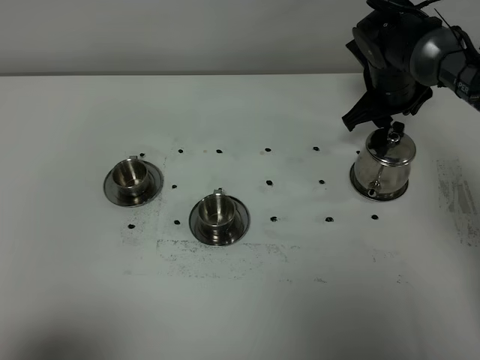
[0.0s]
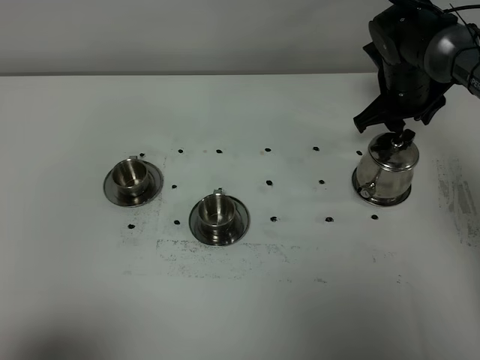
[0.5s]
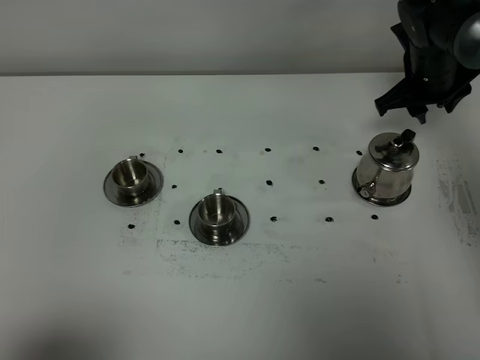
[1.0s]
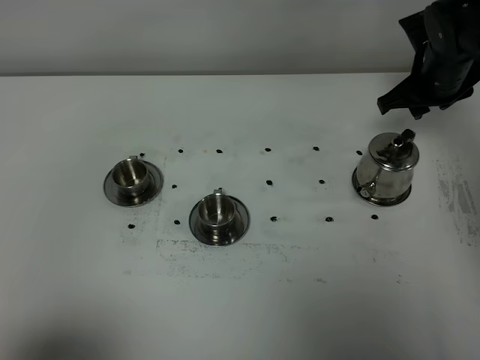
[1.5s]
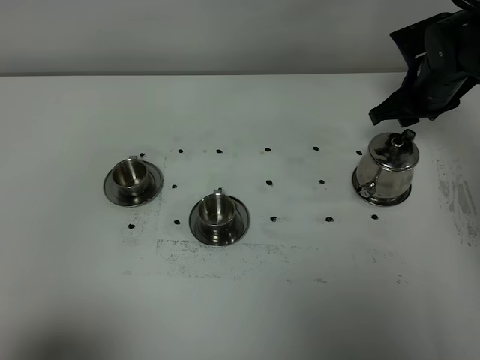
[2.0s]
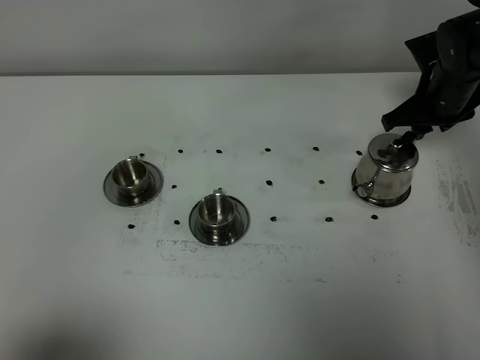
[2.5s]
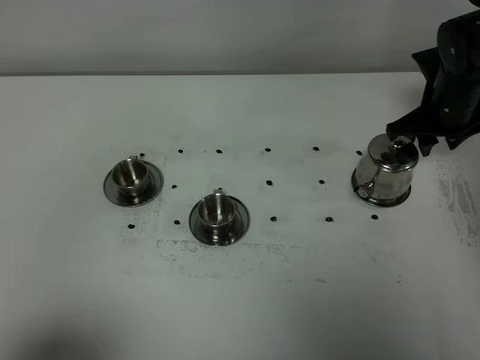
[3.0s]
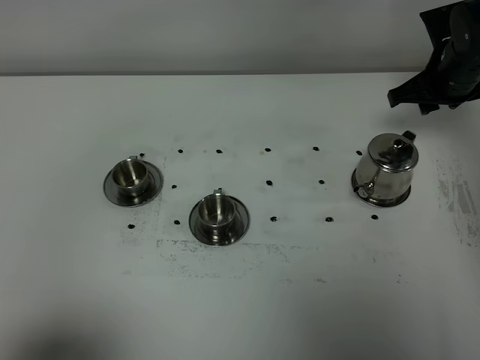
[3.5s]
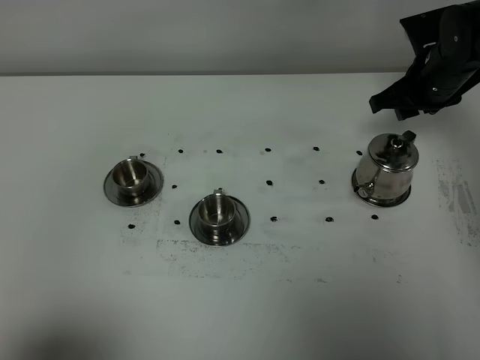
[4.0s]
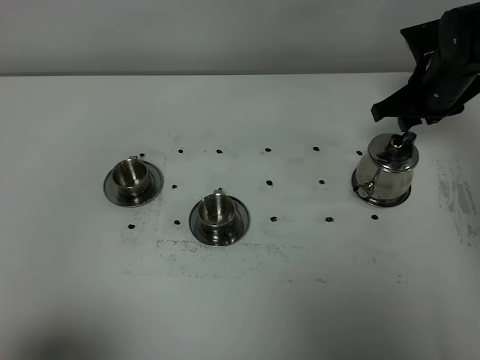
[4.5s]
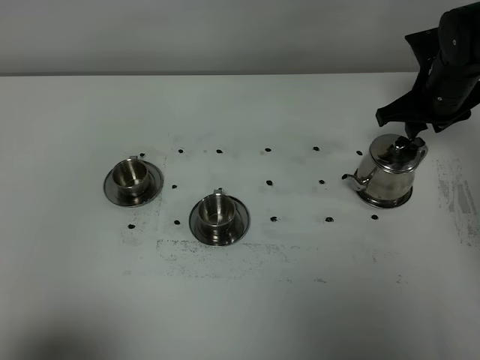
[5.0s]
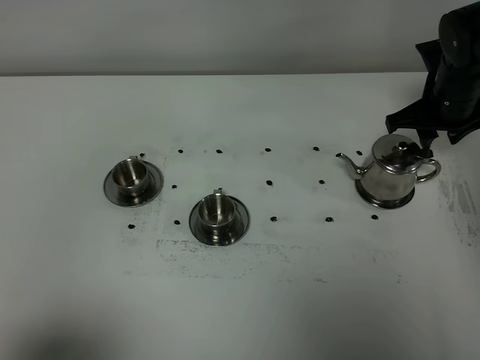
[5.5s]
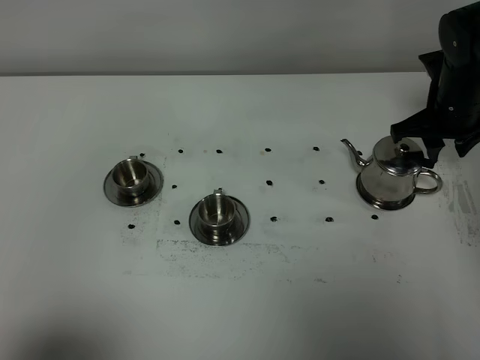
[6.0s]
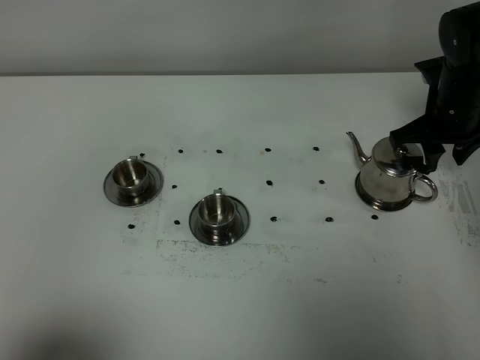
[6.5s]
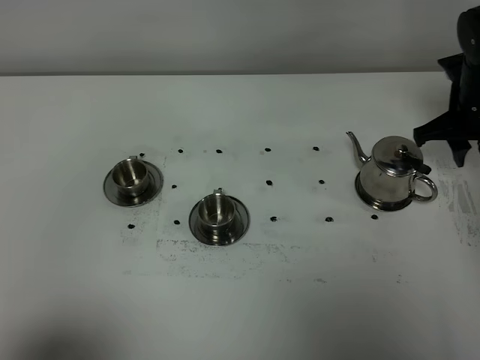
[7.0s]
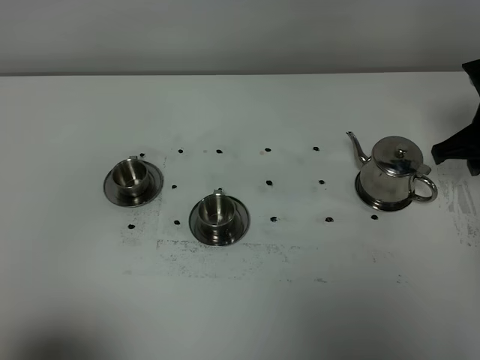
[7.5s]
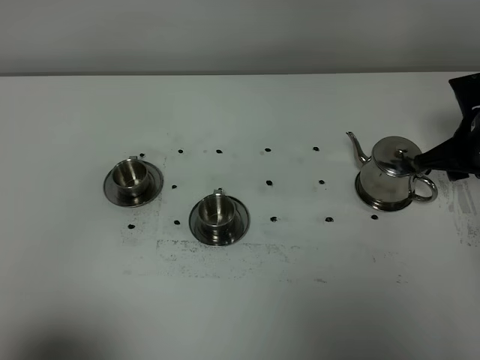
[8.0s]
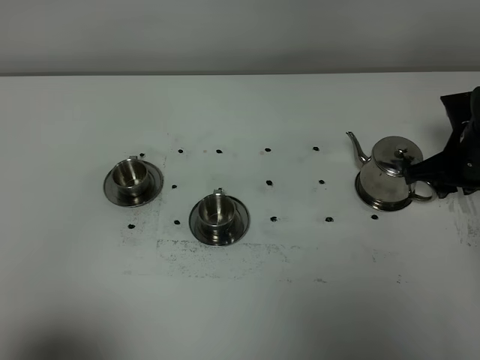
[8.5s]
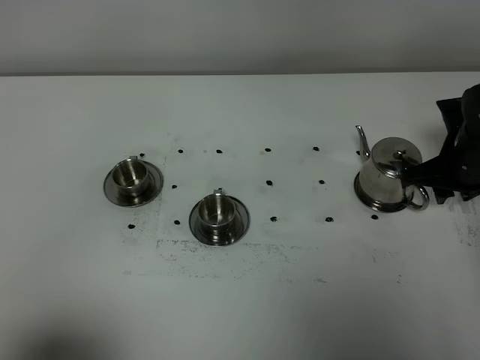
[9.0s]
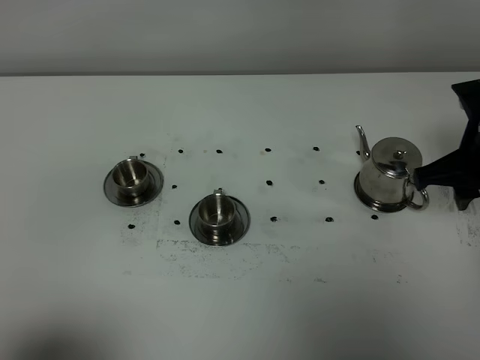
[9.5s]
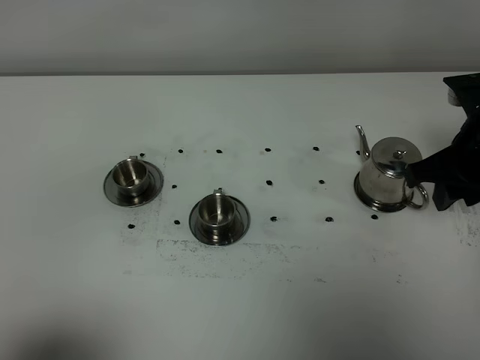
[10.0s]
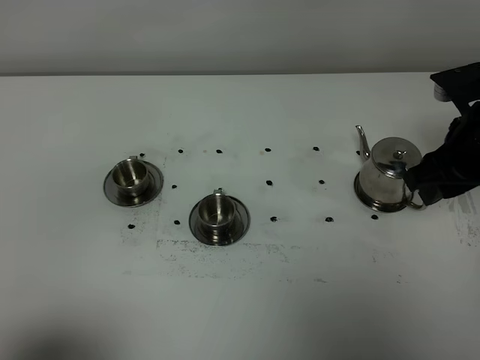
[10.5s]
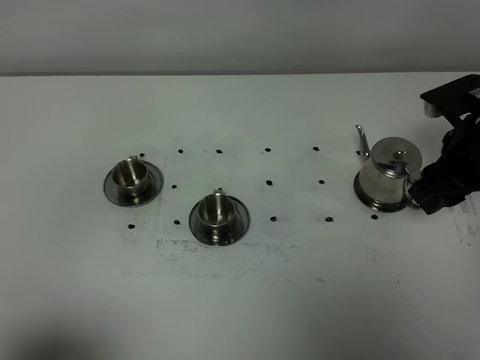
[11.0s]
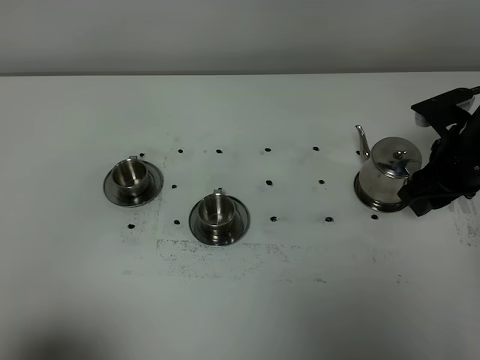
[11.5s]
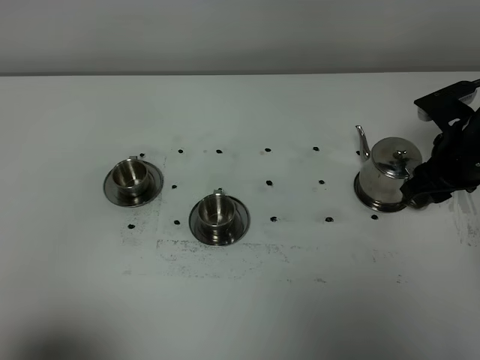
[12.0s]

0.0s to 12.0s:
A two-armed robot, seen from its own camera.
Task of the whole recording: grasp the stainless steel teapot and pour the tea into the two stainless steel teacups one by one, put the stainless steel teapot back in its original place.
0.0s to 2.0s: The right gripper shifts approximately 5 cm to the right.
2.0s to 4.0s: The grippers stay close to where they were, moving slightly.
6.0s to 8.0s: The right gripper heads backward, covering roughly 5 cm.
8.0s to 10.0s: The right gripper is displaced upward and backward by approximately 10 cm.
10.0s to 12.0s: The right gripper shifts approximately 10 cm downward and forward.

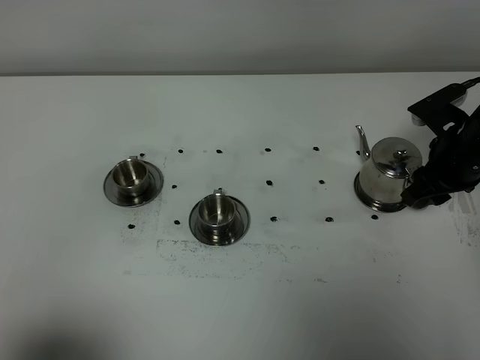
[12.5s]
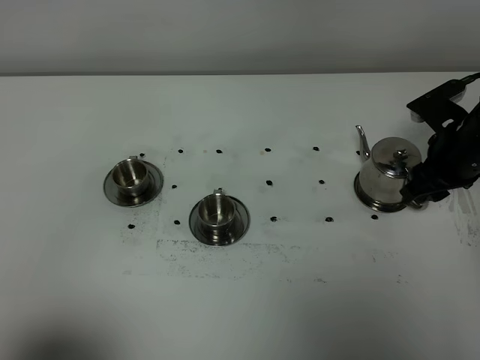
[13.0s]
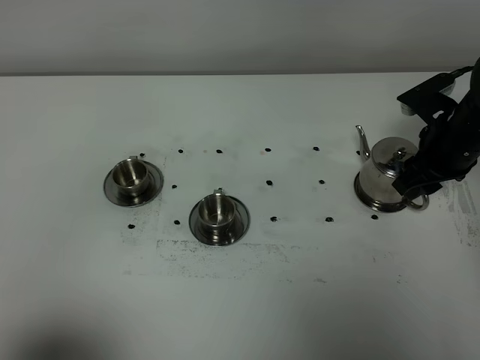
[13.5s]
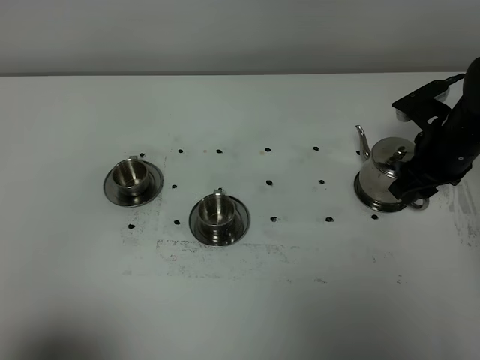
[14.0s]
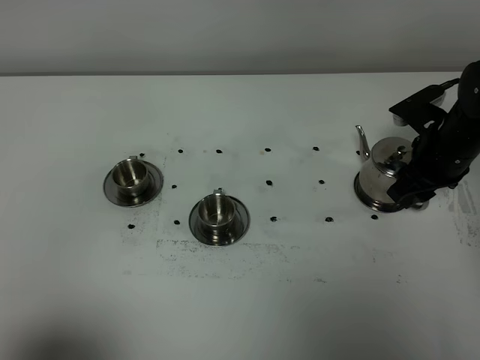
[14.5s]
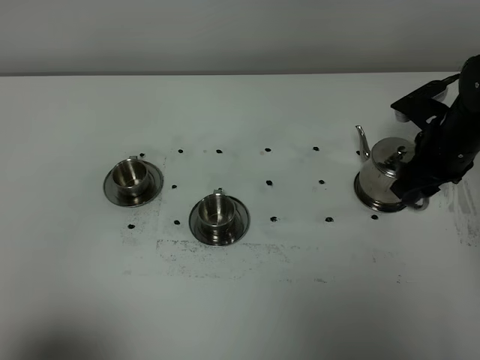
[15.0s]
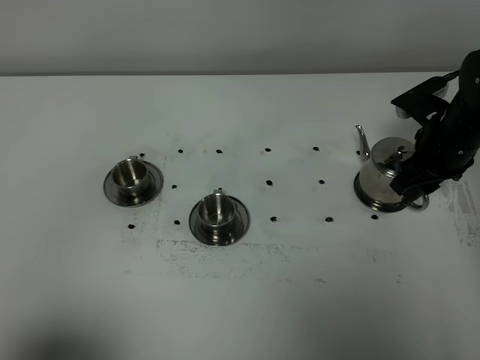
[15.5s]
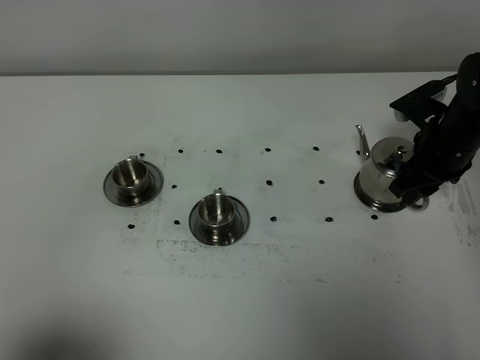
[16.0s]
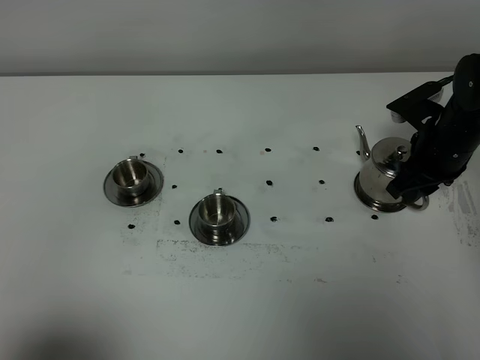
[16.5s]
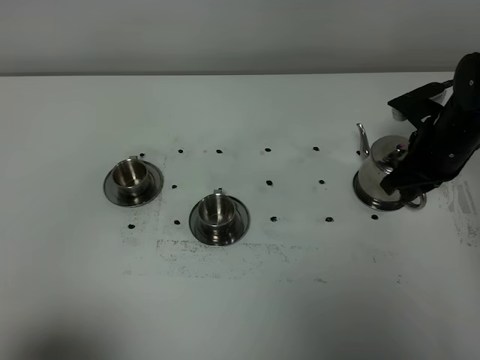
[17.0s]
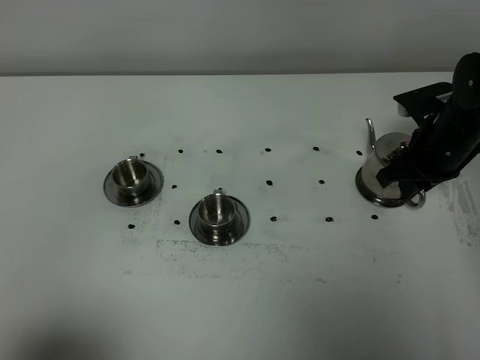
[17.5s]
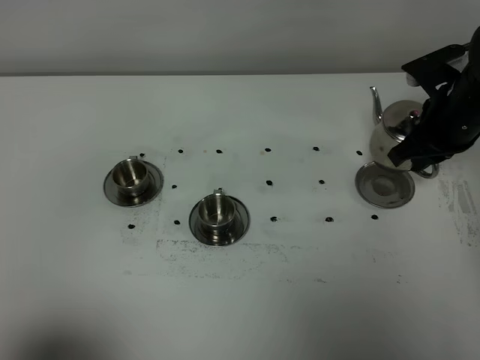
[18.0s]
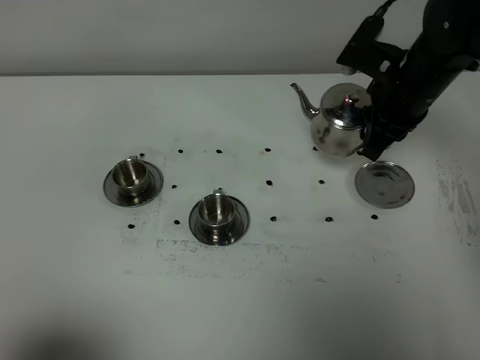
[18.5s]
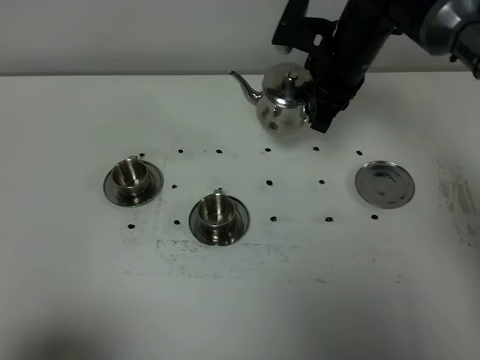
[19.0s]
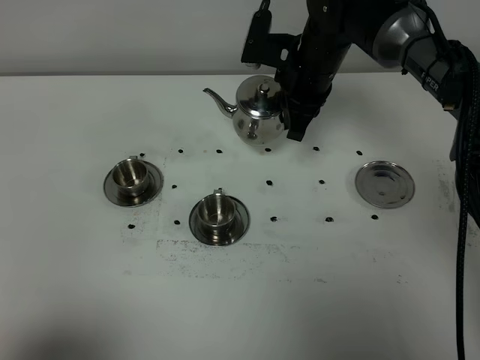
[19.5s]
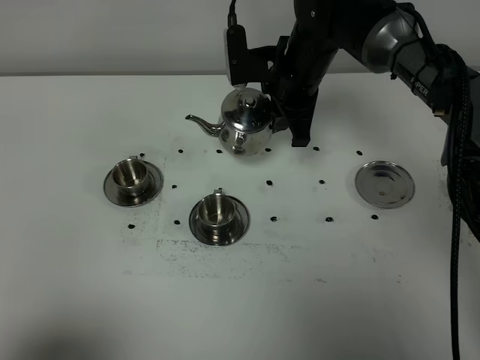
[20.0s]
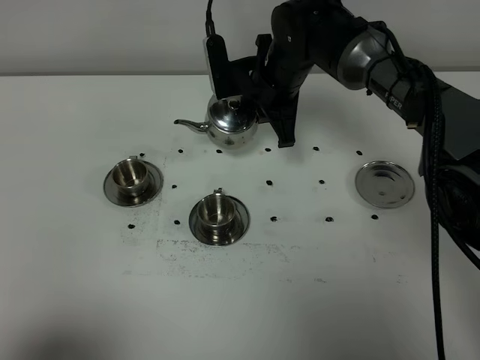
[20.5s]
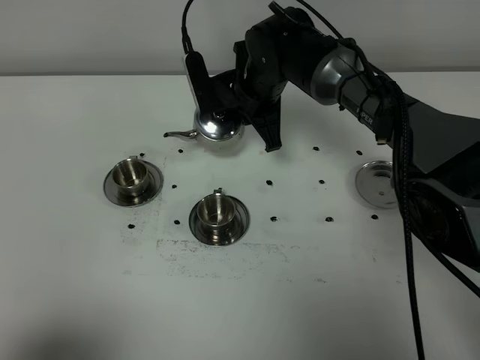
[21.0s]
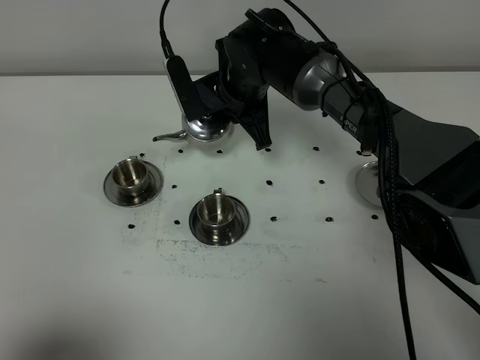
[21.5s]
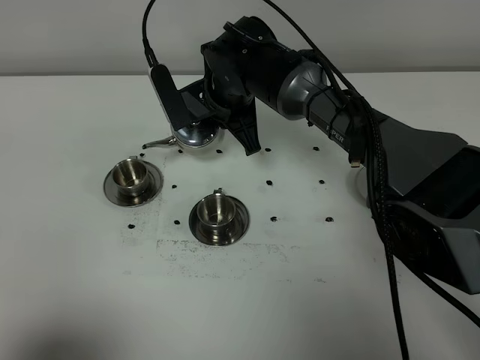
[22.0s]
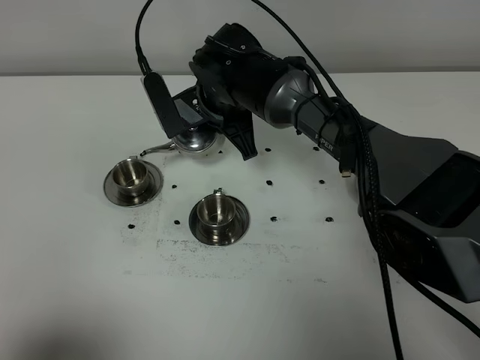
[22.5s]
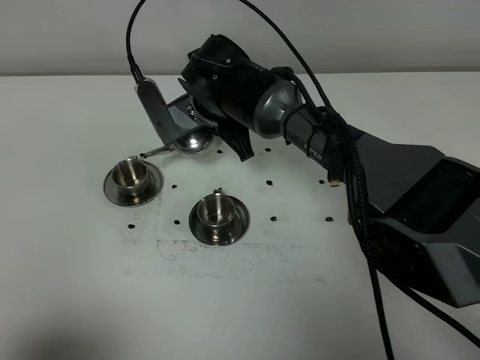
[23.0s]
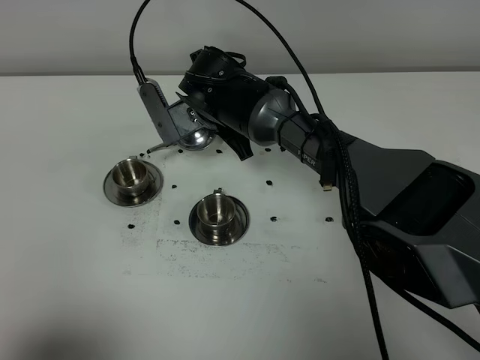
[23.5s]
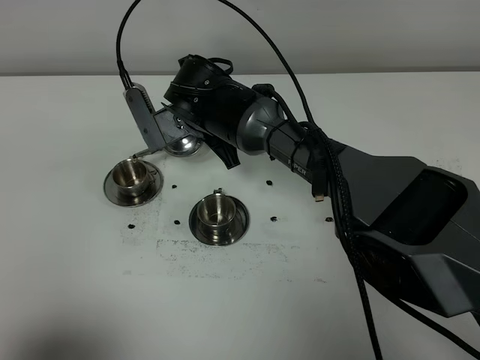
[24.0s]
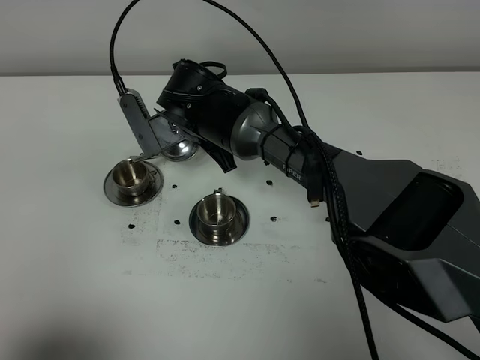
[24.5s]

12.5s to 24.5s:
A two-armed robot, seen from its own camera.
Task of the whole recording: grasp the stainless steel teapot and pour the tea into the two stainless steel teacups one by one, put the stainless steel teapot back in its original place.
Step, 12.5s to 17.5s: Pick up the teapot with the right gripper.
12.5s to 14.5s: The grippers stay close to where they were, moving slightly.
14.5s to 16.5s: The right gripper closes its fingers.
16.5s to 18.5s: The right gripper moves upward and to the left, approximately 10 cm, and closes its fingers.
18.5s to 20.5s: The right gripper is displaced to the left by some 15 cm.
20.5s to 22.5s: The right gripper travels to the left by some 5 cm.

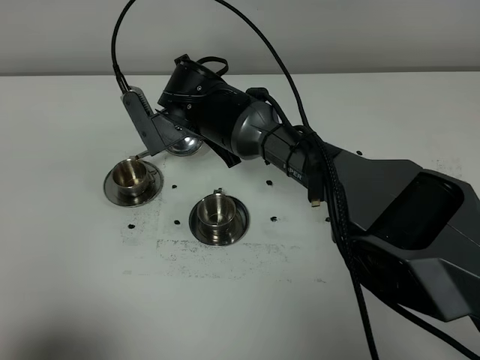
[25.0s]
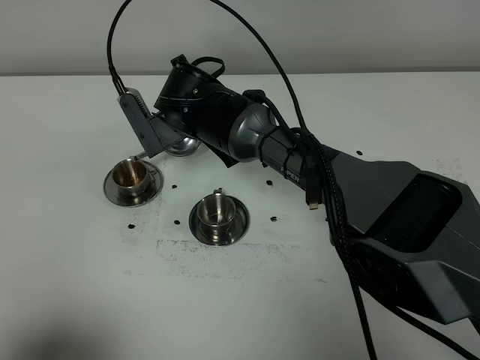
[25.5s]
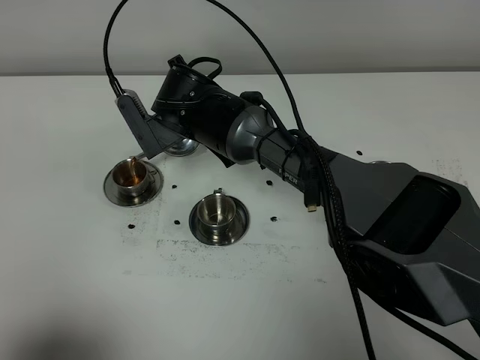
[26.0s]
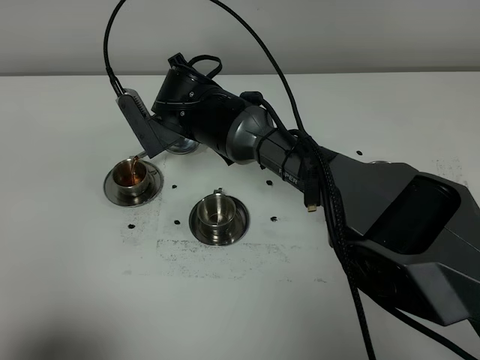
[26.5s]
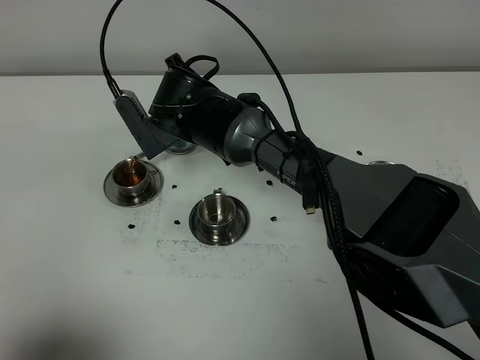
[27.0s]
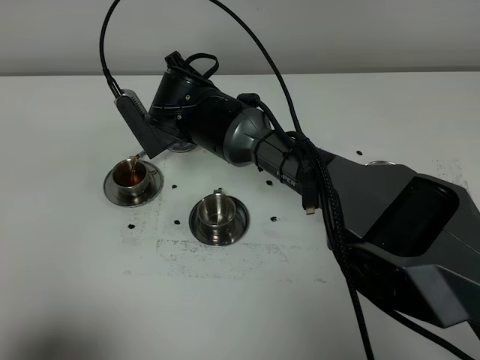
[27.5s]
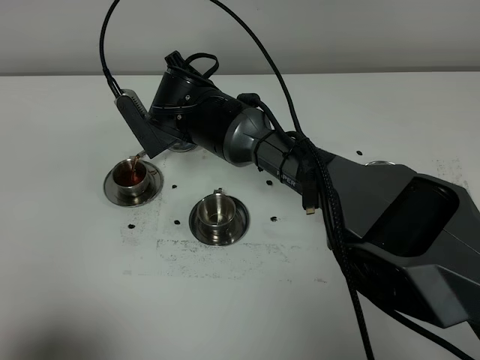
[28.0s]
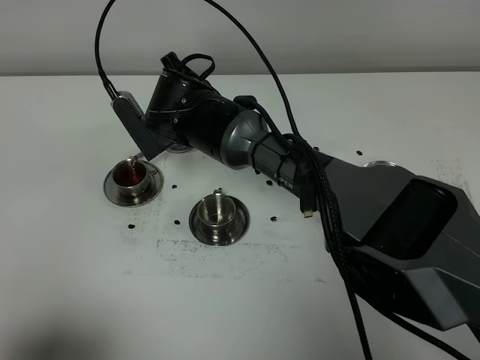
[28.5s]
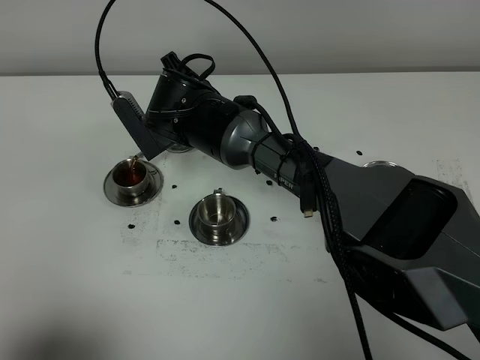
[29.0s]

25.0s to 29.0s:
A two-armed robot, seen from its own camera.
Task of the whole recording: grasp the stainless steel teapot and pour the tea into the two stainless steel teacups one by one, put the stainless steel teapot back in its original place.
25.0s to 27.0s: Both grippers stay put.
27.0s to 29.0s: The two grippers keep their place.
